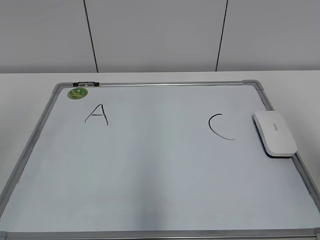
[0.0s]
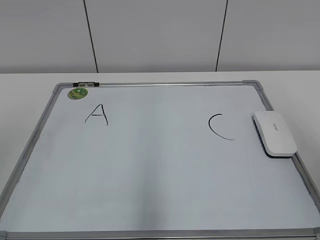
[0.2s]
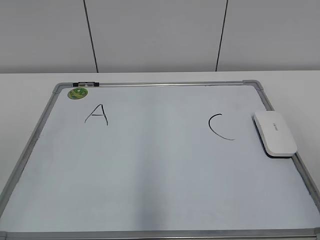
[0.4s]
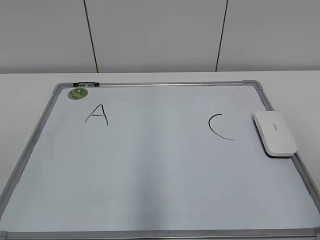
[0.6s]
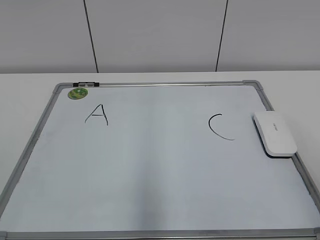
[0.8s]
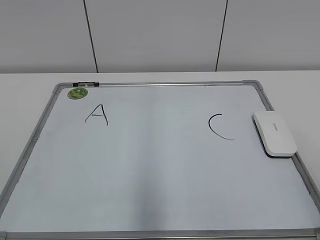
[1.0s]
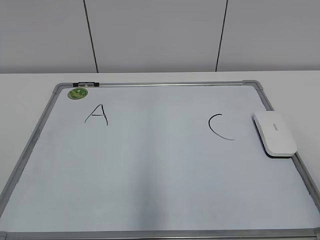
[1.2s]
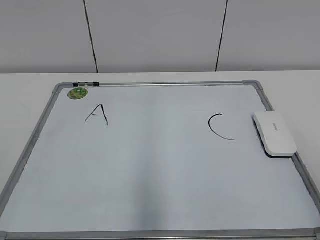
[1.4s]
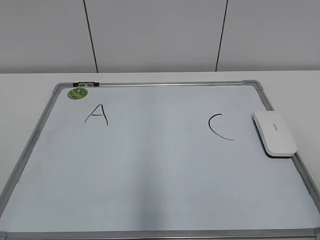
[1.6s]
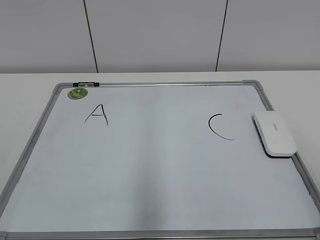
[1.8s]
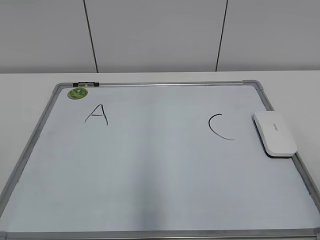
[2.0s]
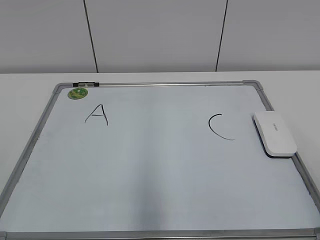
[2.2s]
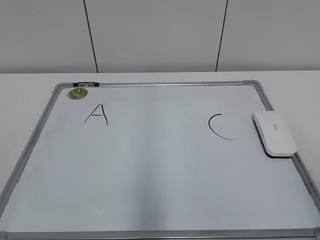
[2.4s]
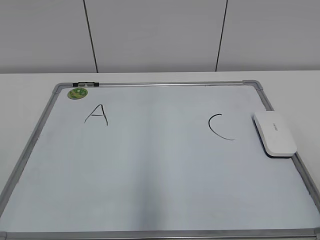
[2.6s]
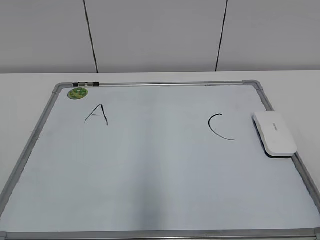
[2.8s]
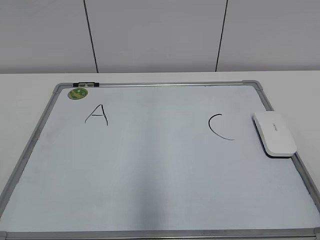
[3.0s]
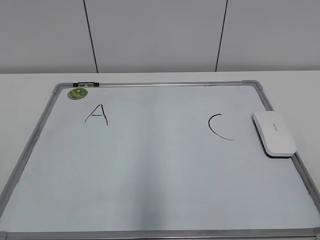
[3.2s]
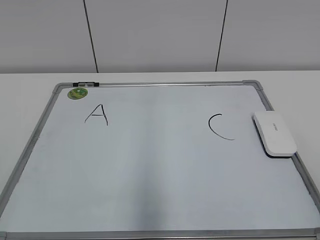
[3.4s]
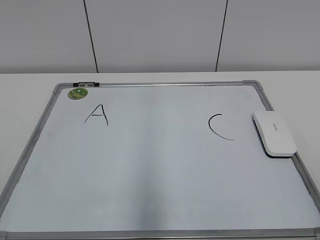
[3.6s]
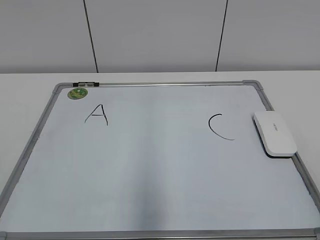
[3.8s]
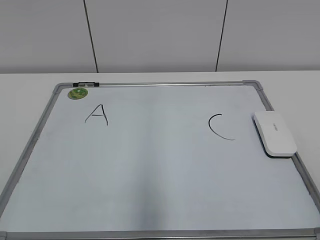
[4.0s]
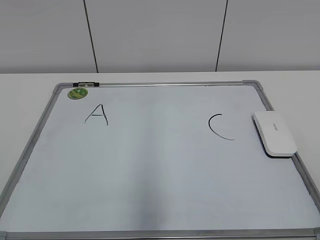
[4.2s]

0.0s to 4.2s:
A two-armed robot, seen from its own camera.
Task of the whole recording: pick up the eraser on the blackboard and erase the letter "B".
0.0s to 1.4s: The right gripper goes roughly 15 cm downward and backward.

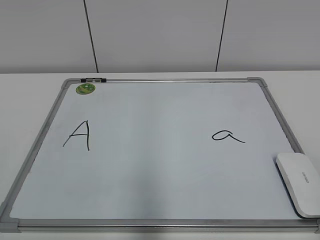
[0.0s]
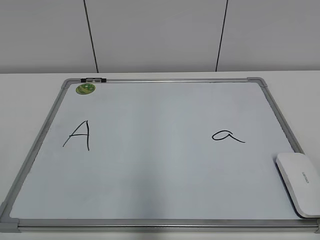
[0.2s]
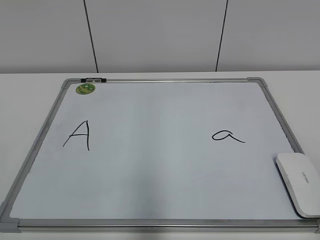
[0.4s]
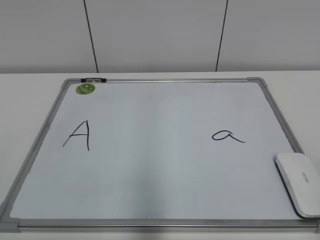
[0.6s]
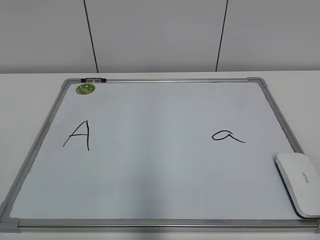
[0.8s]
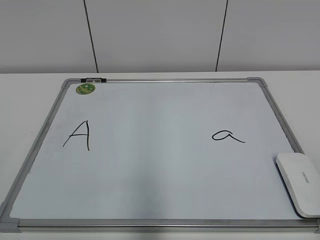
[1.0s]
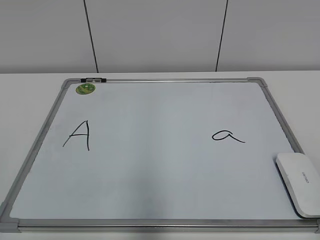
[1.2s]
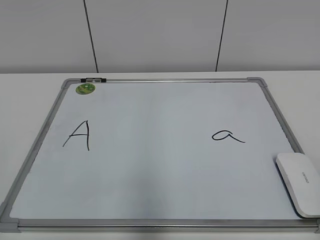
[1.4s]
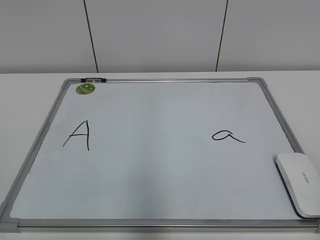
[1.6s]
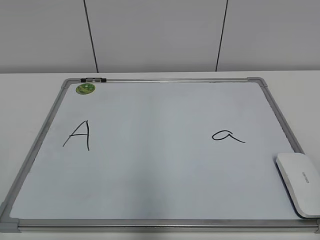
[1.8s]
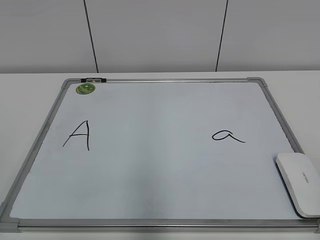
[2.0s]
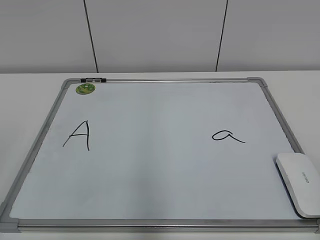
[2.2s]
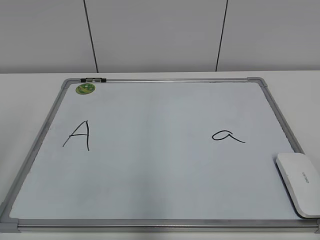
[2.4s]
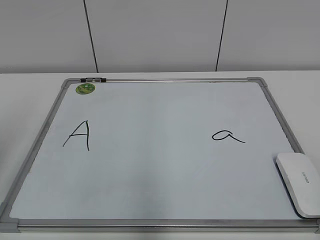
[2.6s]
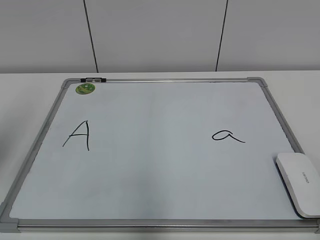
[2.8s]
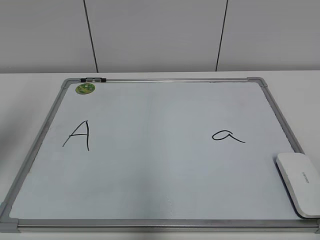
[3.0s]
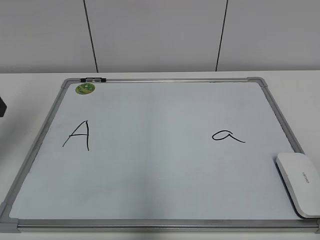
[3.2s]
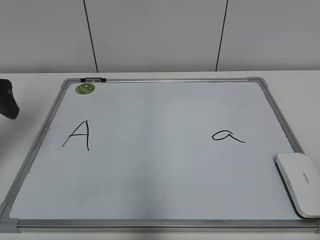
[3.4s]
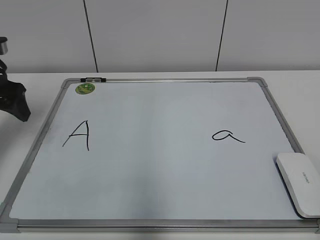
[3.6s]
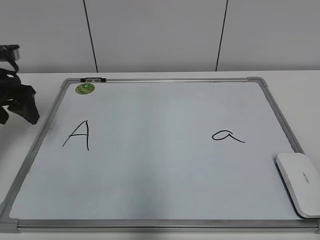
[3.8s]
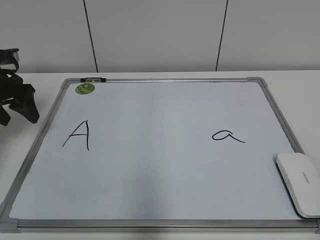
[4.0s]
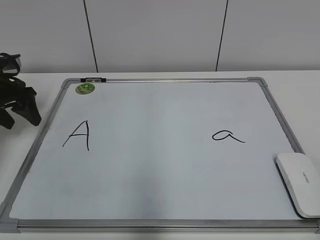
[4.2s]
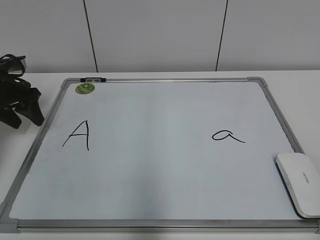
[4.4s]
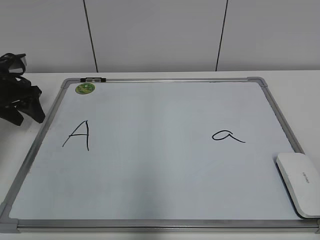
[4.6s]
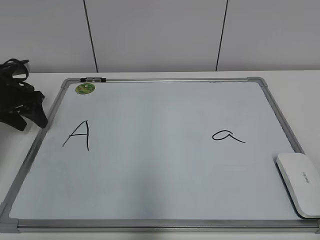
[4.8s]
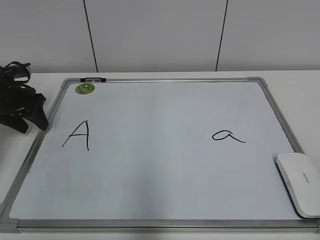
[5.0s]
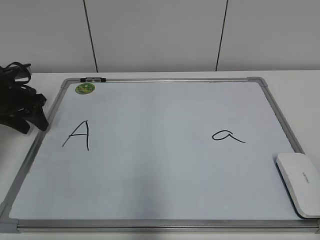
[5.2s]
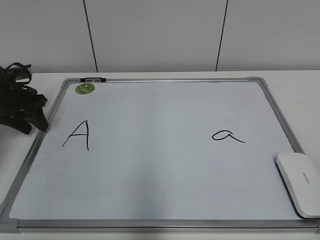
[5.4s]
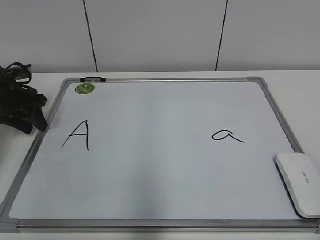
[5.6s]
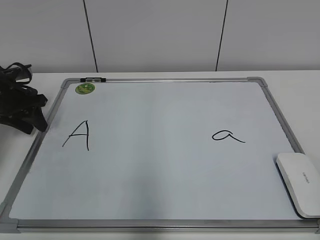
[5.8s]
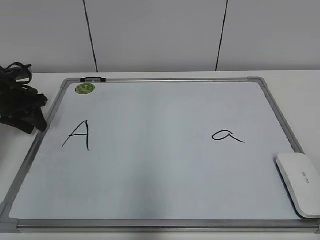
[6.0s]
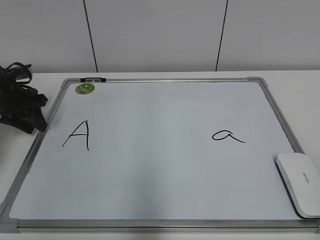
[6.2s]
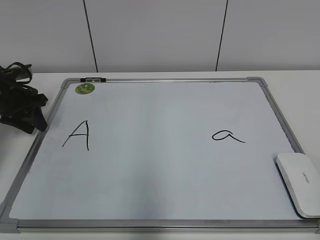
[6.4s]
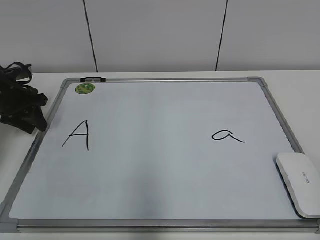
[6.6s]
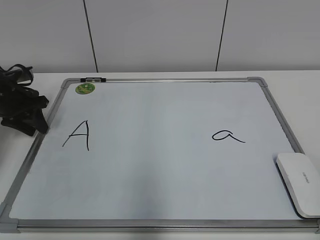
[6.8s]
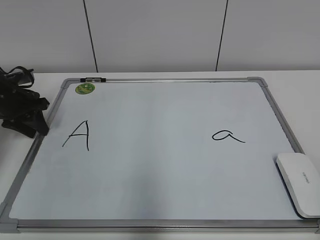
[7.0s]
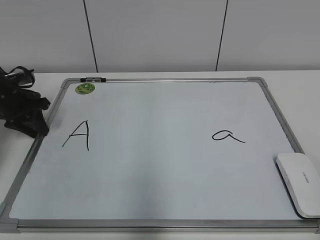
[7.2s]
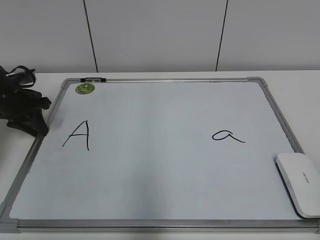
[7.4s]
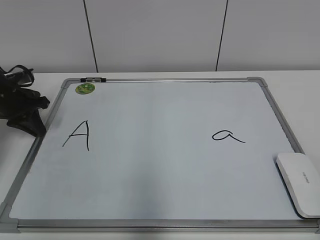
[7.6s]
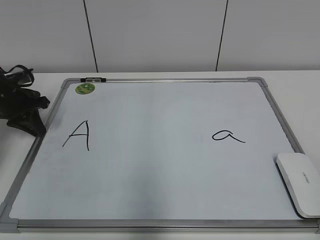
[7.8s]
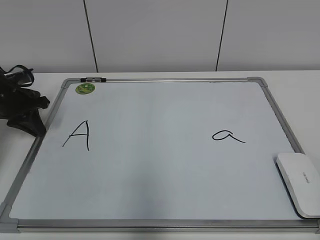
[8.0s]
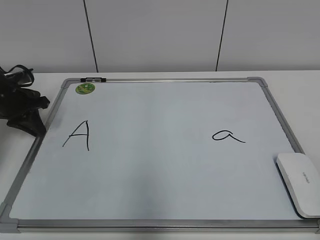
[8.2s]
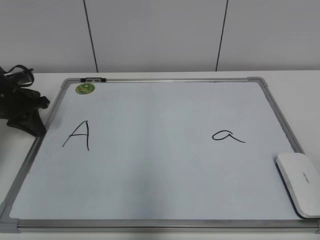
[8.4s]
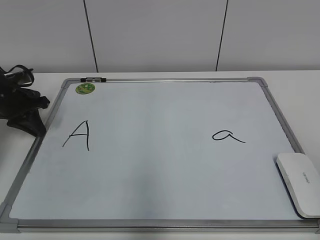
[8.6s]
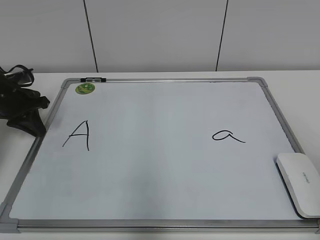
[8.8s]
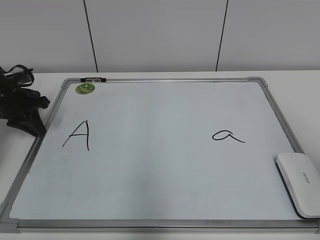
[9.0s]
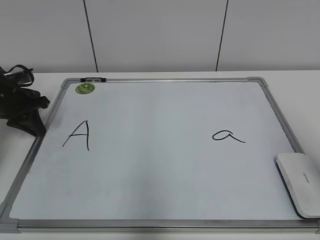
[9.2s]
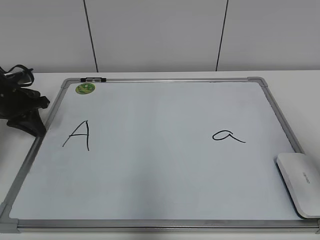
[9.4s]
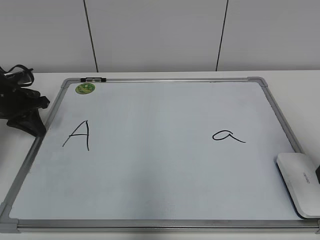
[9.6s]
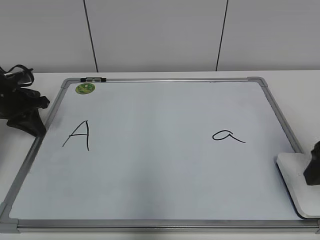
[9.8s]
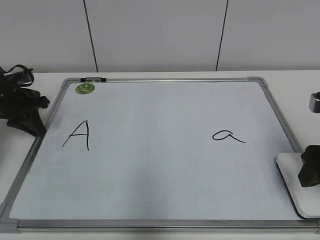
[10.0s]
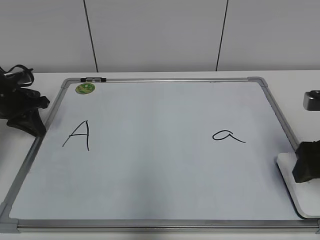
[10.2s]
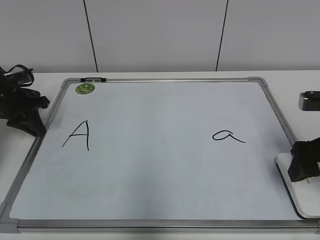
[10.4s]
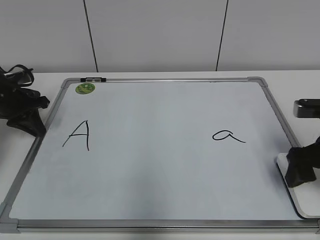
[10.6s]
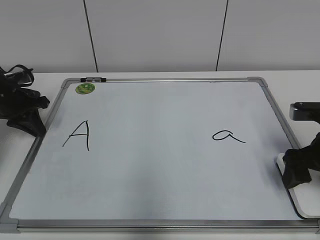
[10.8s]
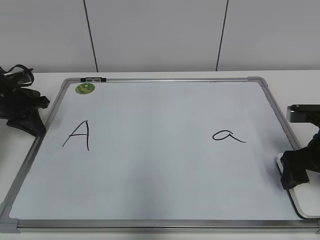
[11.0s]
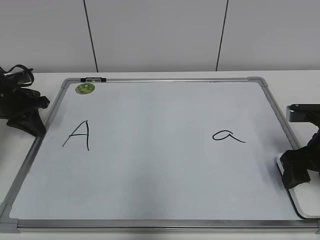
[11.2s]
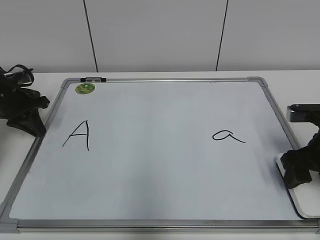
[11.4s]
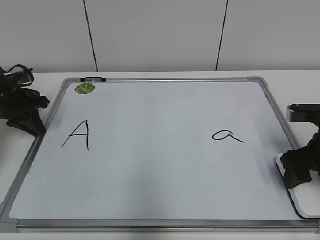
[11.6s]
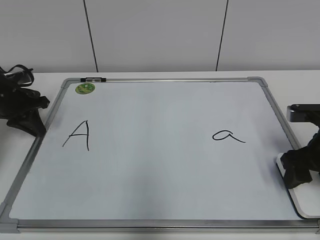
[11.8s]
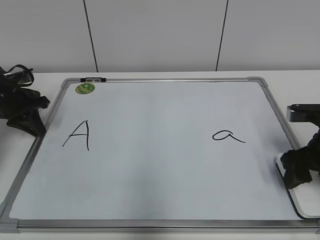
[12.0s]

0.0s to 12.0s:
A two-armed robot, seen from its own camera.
Task of the whole recording: pick up the eraser on the blackboard and erase the letter "a".
Step, 0.0s to 8.0s: Hold the drawing board steady with your left hand.
Step, 8.2s to 11.8s: Grab the eraser with your right hand.
1.6s to 3.0s: The left gripper heads forward, covering some 25 cm, and opens.
3.0s to 4.4s: The left gripper travels forward and downward by approximately 20 cm.
4.4s to 6.0s: There are only small adjustments of the grippers.
6.0s to 7.6s: The left gripper closes its fingers.
9.0s to 10.4s: The right gripper goes some 20 cm forward and downward, and opens its fingers.
10.4s to 12.0s: The right gripper closes.

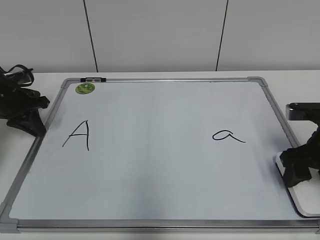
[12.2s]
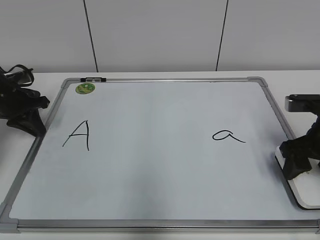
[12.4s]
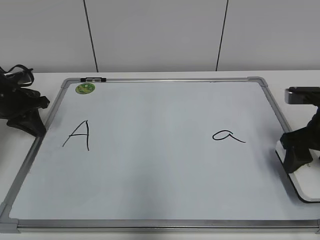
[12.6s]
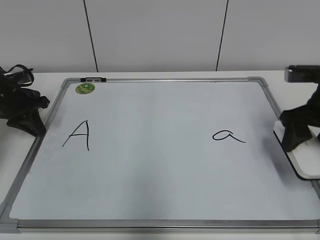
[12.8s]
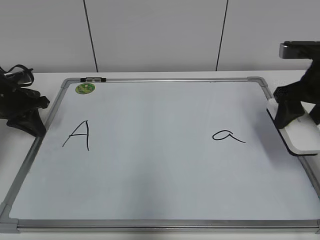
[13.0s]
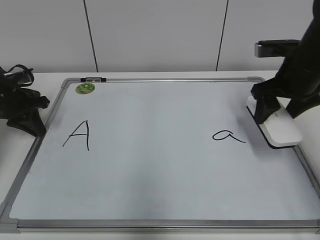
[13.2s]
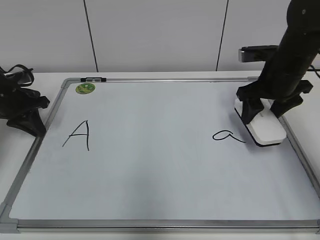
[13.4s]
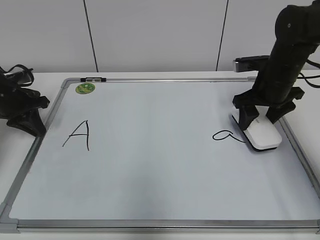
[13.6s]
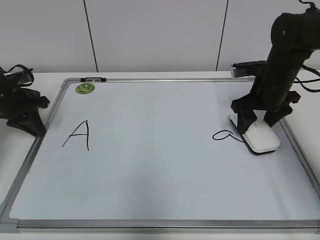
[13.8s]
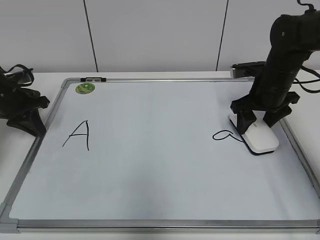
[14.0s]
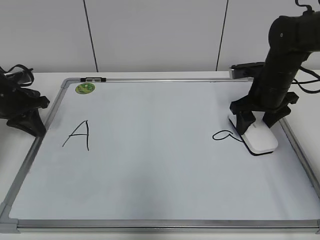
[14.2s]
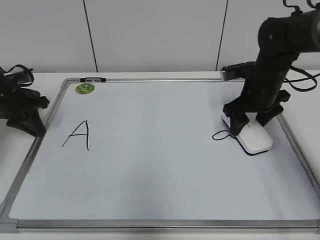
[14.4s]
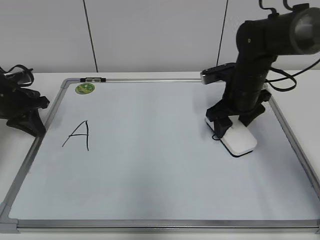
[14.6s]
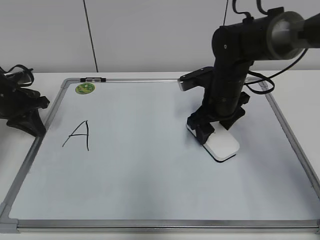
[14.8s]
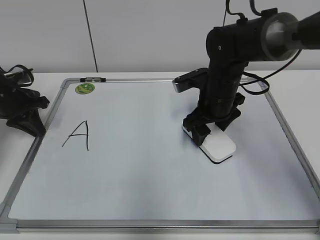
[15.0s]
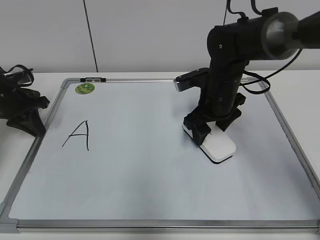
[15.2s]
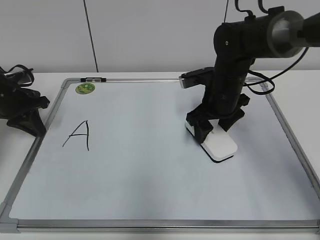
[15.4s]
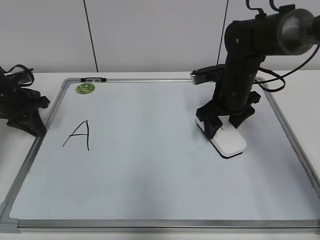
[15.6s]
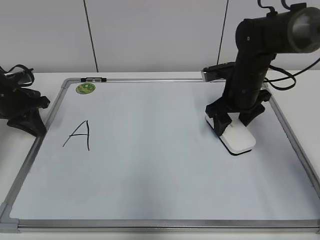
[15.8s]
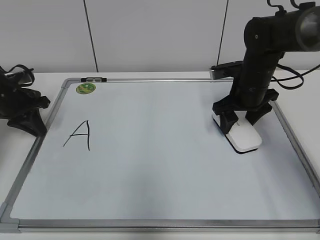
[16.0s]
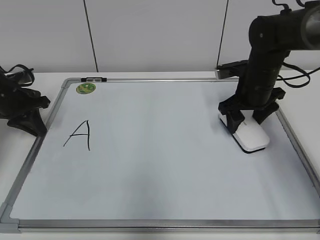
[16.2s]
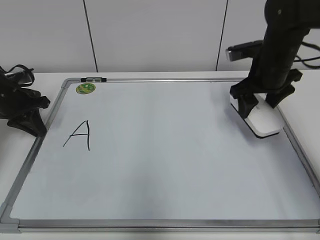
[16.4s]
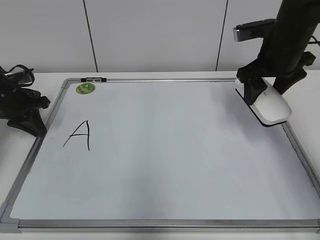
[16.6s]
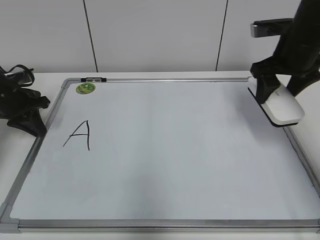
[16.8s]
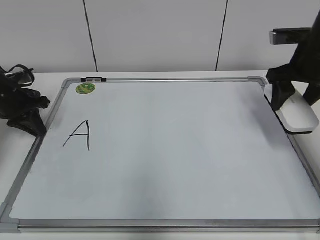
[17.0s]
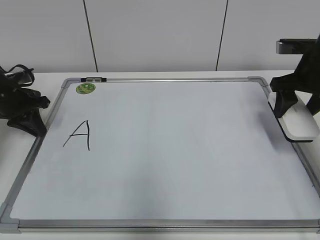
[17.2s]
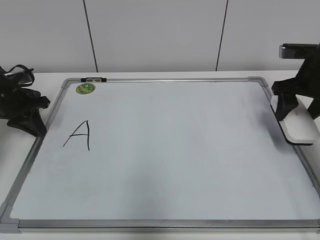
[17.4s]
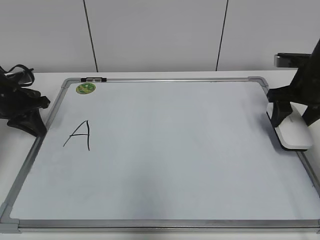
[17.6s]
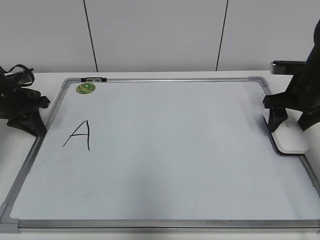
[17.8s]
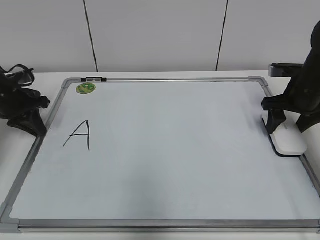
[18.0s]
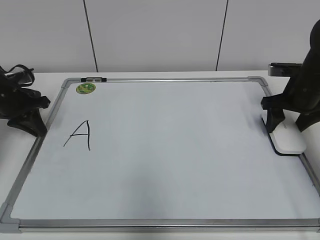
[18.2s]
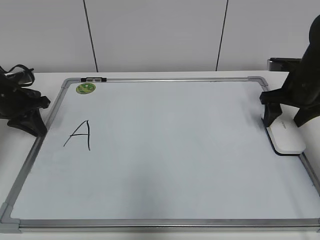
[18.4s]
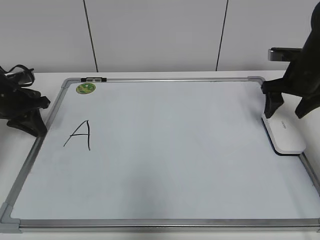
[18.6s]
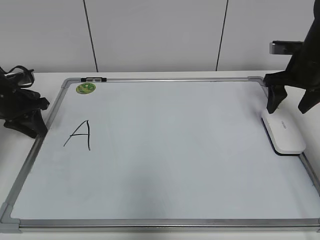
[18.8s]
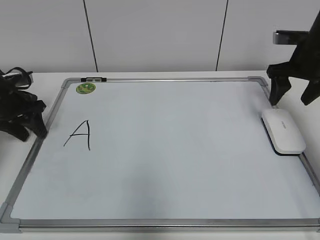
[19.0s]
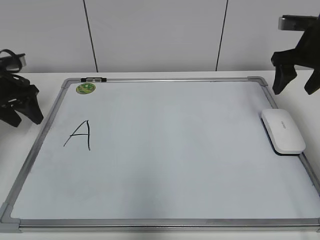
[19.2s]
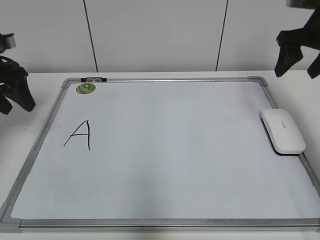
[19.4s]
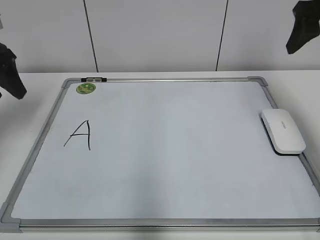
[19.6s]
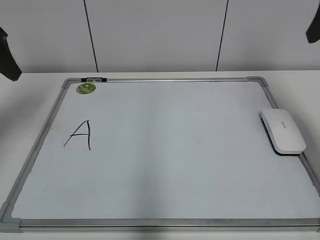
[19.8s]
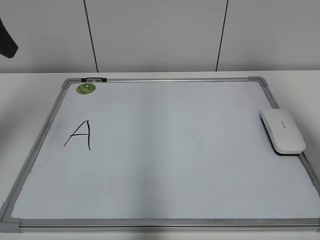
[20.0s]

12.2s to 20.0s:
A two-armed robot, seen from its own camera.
Task of the whole recording: pick up the eraser on the blackboard and erase the letter "a".
Step, 12.2s to 15.4s: Erase the letter a with your right hand.
Step, 15.8s to 18.0s: Put down the eraser with your right hand.
12.2s to 13.8s: The right gripper moves forward, roughly 15 cm.
13.8s to 15.4s: The right gripper goes approximately 10 cm to the left.
15.4s to 16.8s: The right gripper is displaced to the right and upward by about 15 cm.
16.8s to 18.4s: The right gripper travels downward and to the right by roughly 10 cm, and opens up.
18.4s to 20.0s: Both grippers travel together upward and backward, roughly 25 cm. The left gripper opens.
